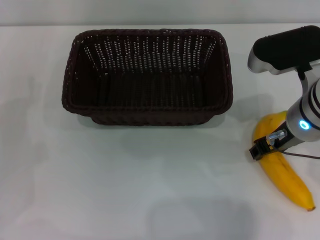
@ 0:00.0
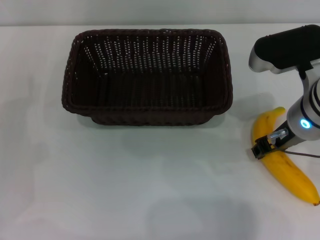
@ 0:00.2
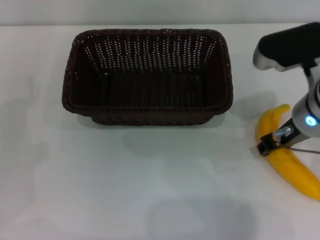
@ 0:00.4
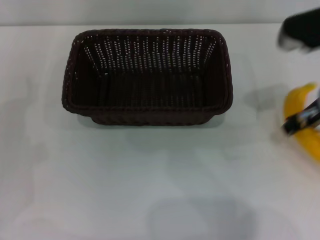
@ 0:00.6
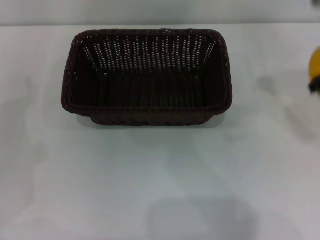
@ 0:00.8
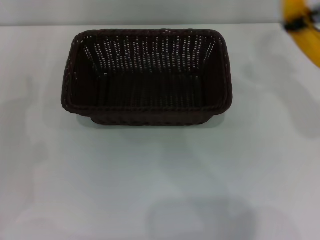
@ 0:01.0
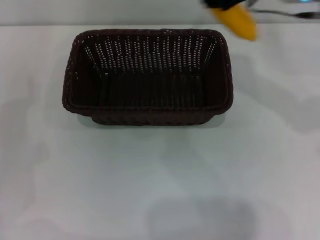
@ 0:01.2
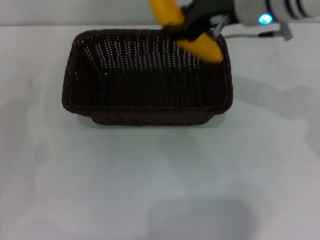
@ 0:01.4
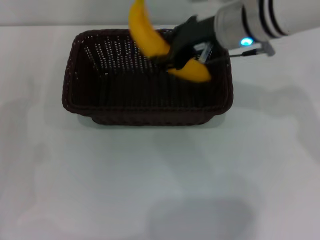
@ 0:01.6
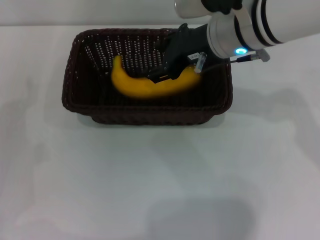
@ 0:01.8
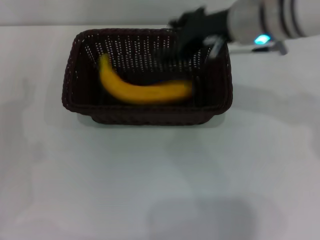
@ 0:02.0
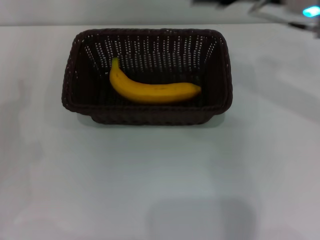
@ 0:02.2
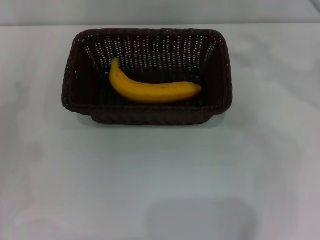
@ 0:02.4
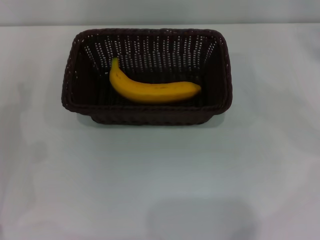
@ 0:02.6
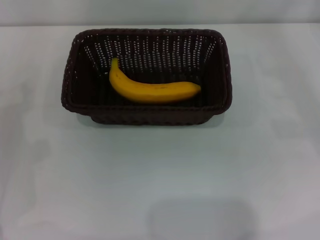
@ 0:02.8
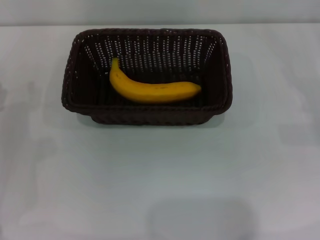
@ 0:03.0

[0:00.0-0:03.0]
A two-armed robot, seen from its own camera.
Step, 0:00.8 to 0:01.8: Place the banana into the dark basket with the right gripper.
0:00.0 to 0:01.6: The right gripper goes approximately 10 cm forward, to the left and upward.
0:01.6 to 0:03.0: The right gripper shifts approximately 30 cm to the right and downward, and opens up.
